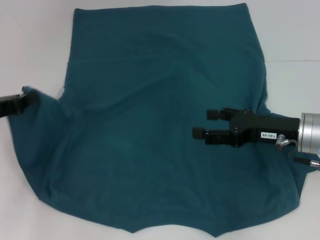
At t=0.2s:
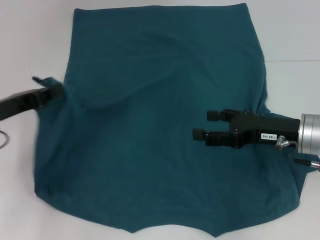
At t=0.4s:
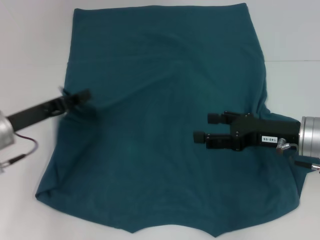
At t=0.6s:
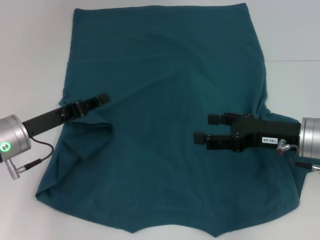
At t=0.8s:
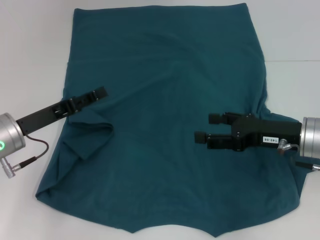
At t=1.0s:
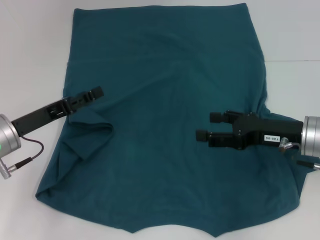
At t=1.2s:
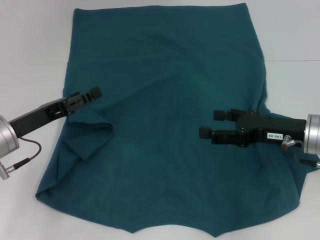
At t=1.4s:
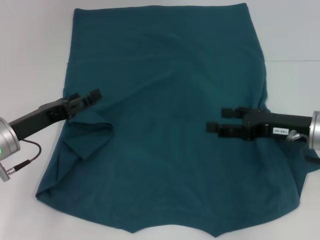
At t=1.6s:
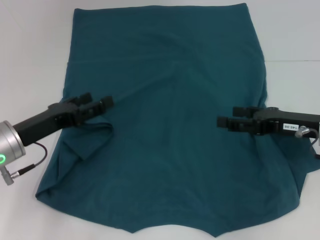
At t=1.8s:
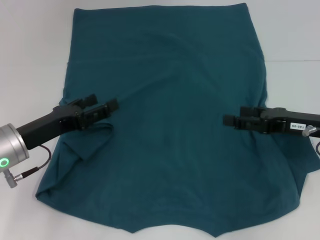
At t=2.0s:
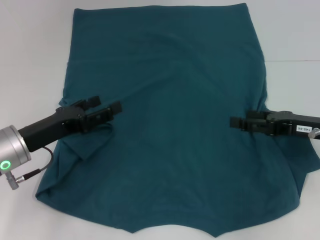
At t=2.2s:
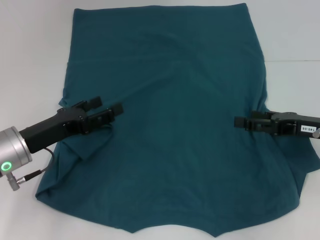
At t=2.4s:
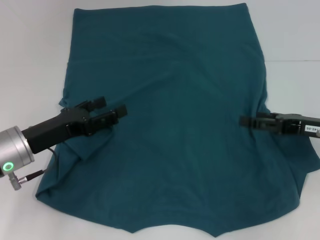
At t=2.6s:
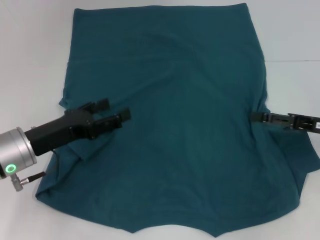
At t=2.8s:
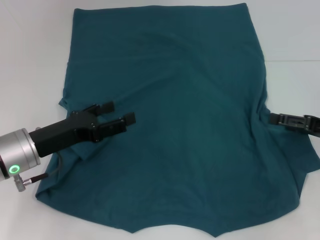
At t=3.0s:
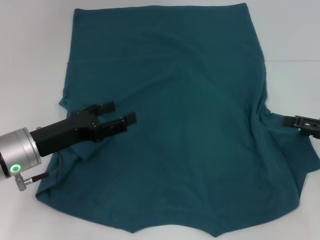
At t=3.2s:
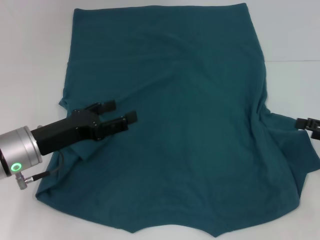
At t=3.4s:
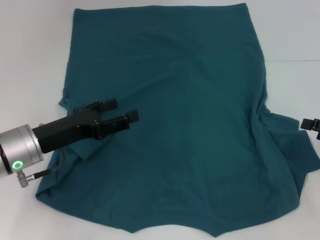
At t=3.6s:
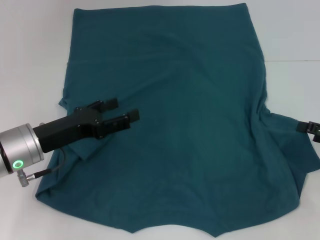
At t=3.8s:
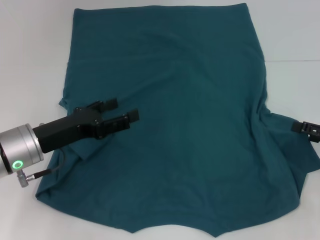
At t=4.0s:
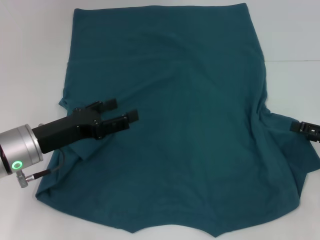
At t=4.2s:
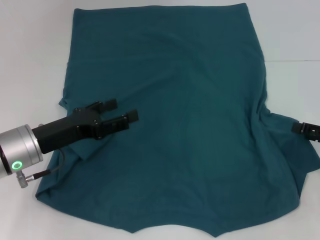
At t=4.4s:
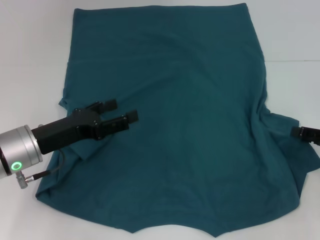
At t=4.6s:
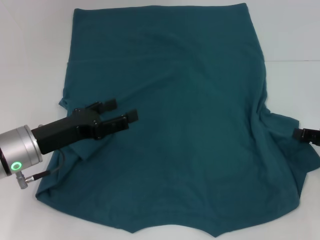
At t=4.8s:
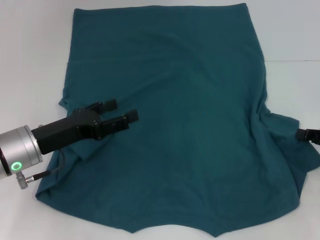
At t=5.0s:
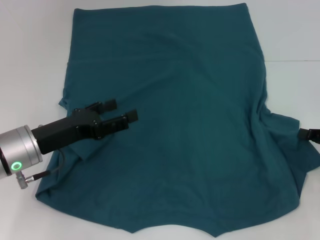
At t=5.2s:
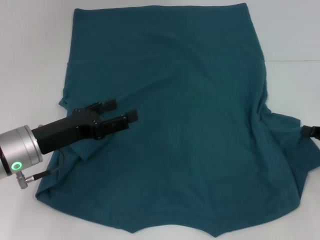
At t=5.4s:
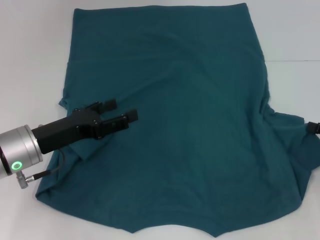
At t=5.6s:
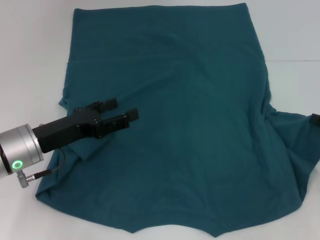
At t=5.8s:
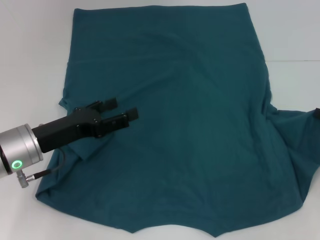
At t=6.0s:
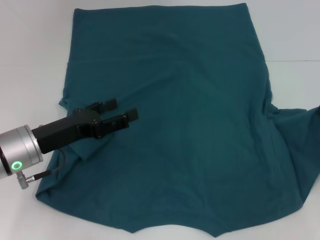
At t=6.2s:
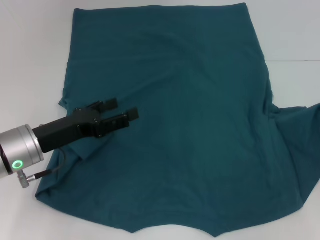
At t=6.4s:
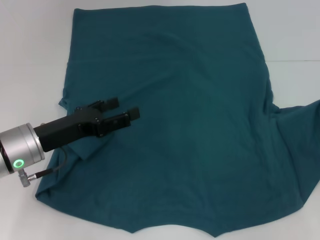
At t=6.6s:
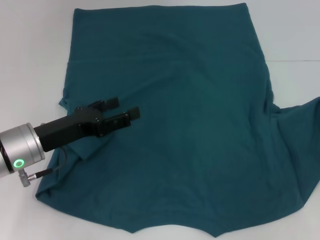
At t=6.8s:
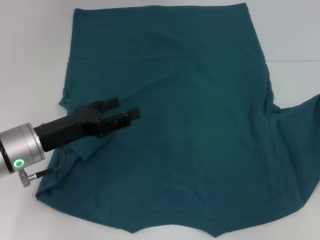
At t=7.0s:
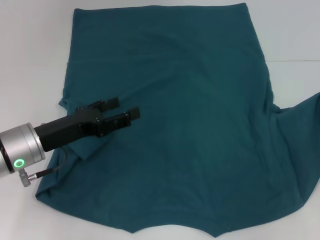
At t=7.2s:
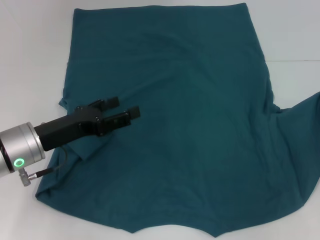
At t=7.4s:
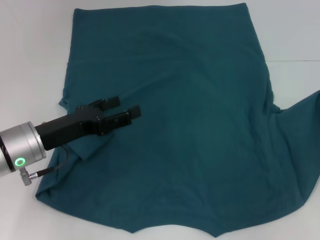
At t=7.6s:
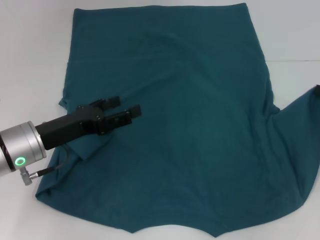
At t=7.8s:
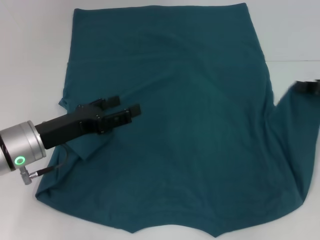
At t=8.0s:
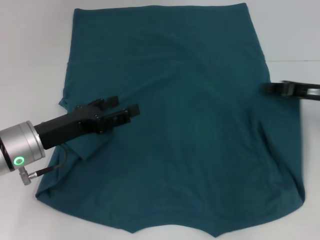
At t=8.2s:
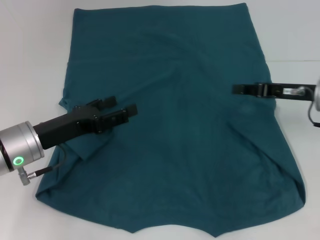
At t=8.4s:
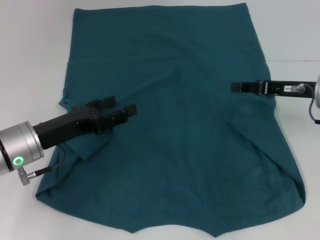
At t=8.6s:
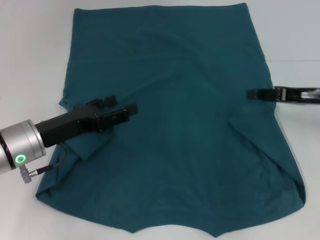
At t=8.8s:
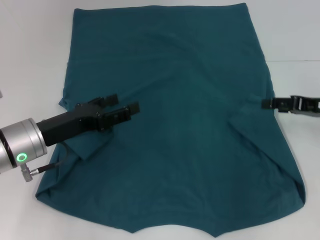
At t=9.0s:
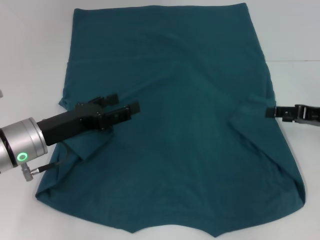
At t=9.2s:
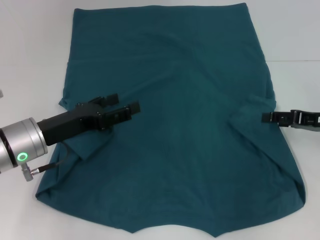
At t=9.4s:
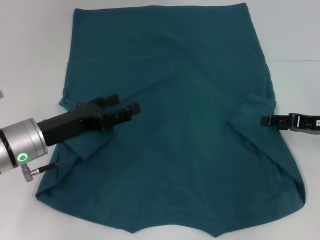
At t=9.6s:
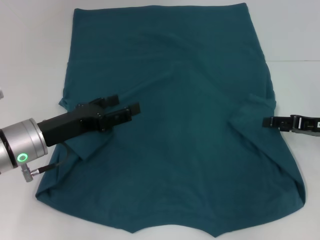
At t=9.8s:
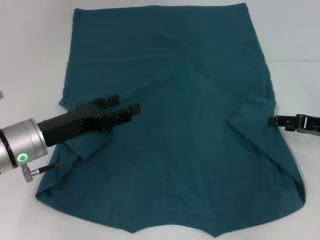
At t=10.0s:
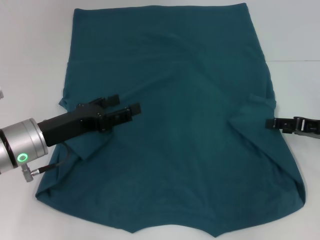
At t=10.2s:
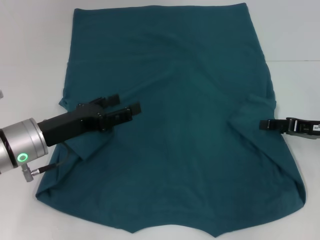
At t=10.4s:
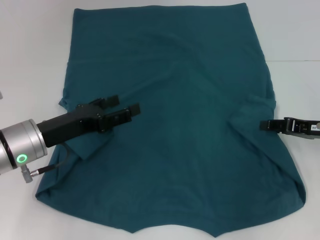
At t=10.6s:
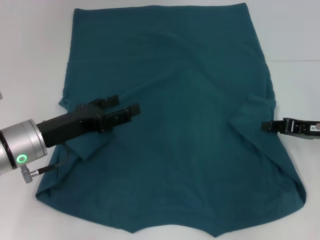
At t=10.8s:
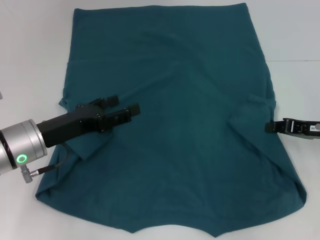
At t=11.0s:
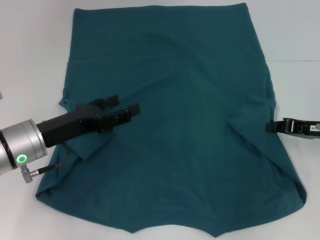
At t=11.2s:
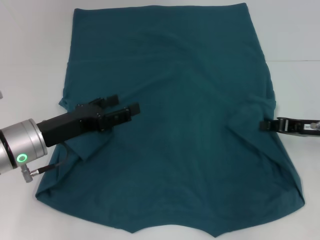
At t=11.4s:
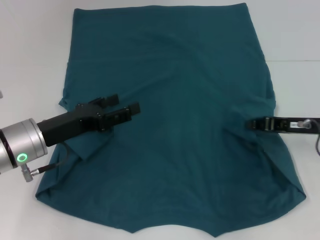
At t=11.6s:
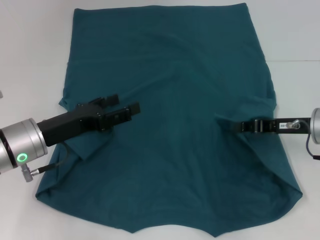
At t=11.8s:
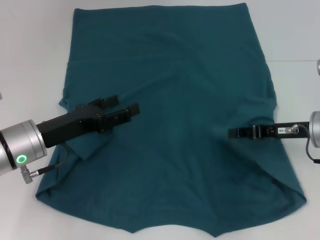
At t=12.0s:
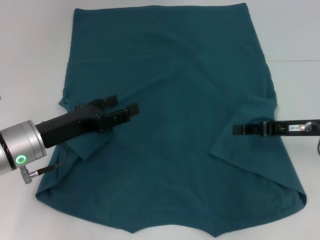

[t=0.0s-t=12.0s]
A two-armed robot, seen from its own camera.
t=0.0s to t=1.6s: The left gripper travels to the right by approximately 5 cm, and opens.
t=1.6s to t=3.0s: The right gripper goes about 10 cm to the right.
t=3.0s to t=4.4s: There are only small adjustments of the grippers.
t=4.4s to t=6.0s: The right gripper closes.
t=6.0s to t=7.6s: The grippers make only small movements.
t=7.6s to t=9.0s: The right gripper opens up.
t=9.0s to t=10.4s: The grippers move only a little.
t=10.4s to t=12.0s: The right gripper closes.

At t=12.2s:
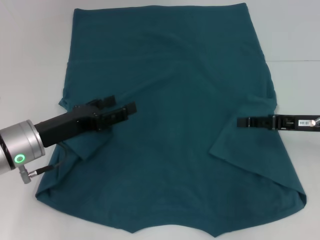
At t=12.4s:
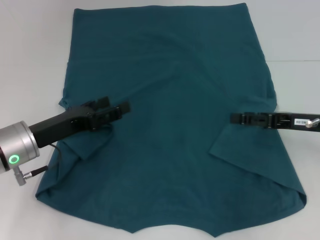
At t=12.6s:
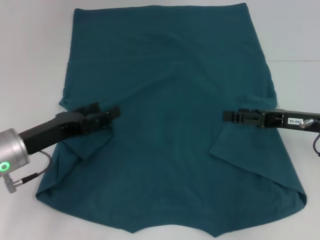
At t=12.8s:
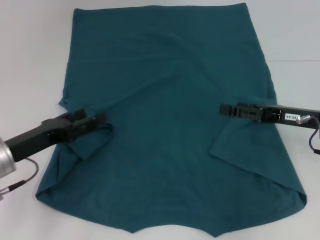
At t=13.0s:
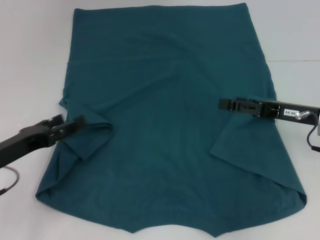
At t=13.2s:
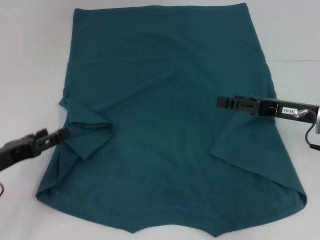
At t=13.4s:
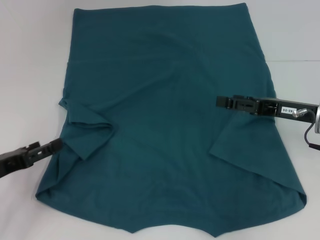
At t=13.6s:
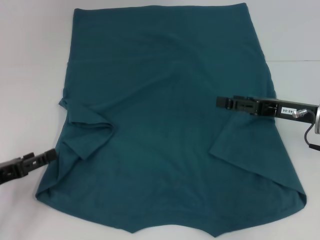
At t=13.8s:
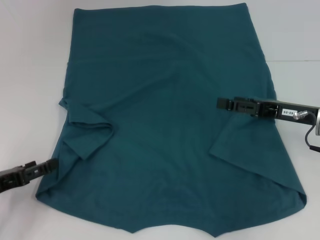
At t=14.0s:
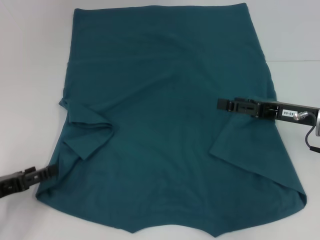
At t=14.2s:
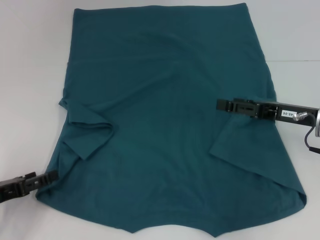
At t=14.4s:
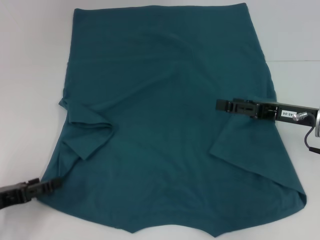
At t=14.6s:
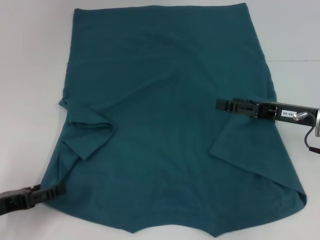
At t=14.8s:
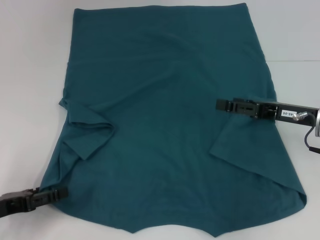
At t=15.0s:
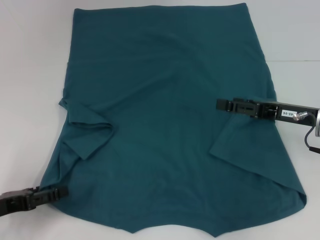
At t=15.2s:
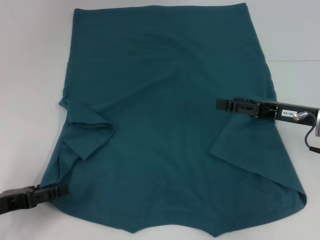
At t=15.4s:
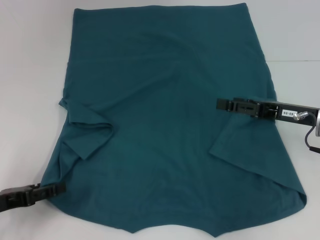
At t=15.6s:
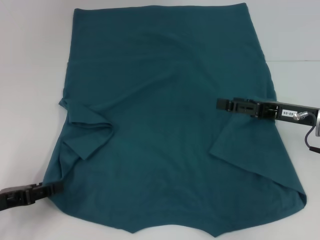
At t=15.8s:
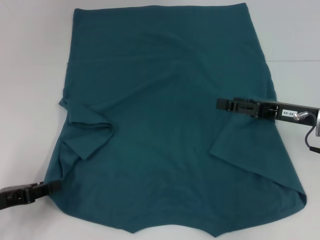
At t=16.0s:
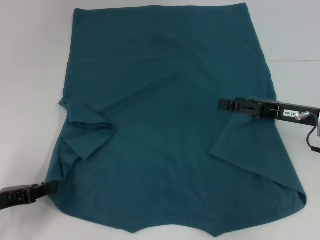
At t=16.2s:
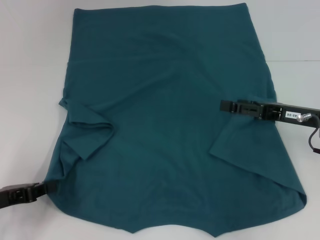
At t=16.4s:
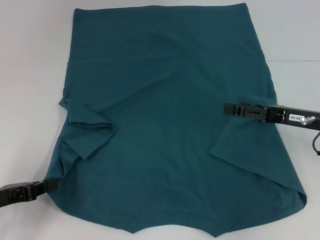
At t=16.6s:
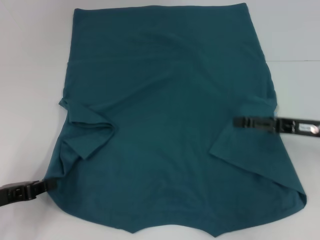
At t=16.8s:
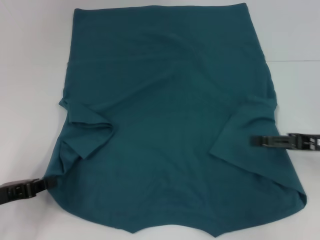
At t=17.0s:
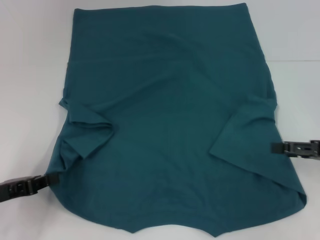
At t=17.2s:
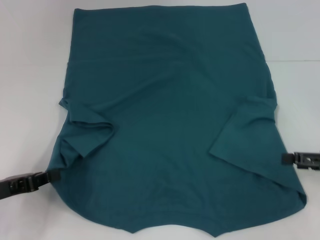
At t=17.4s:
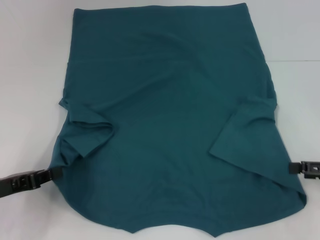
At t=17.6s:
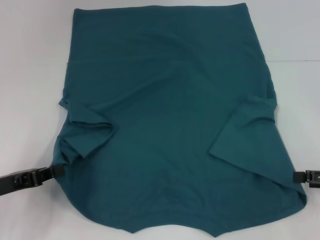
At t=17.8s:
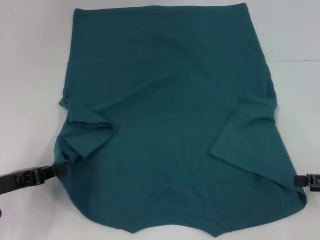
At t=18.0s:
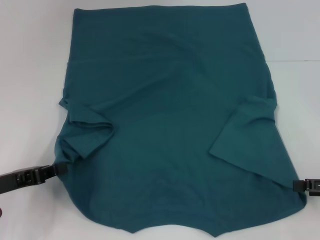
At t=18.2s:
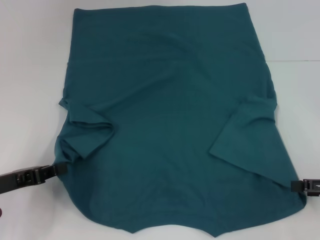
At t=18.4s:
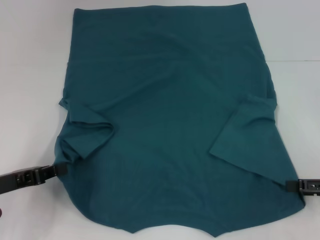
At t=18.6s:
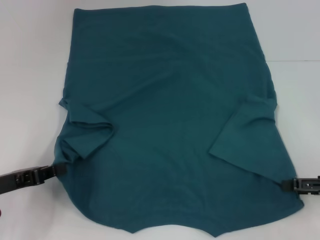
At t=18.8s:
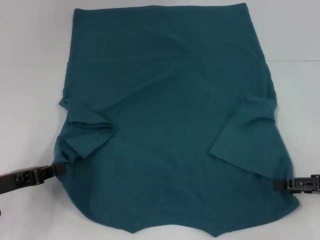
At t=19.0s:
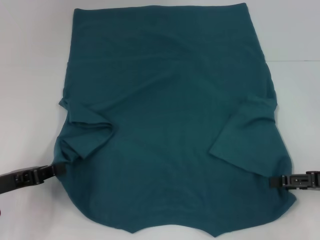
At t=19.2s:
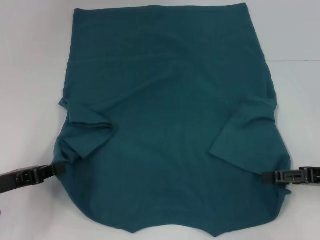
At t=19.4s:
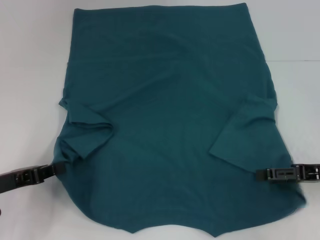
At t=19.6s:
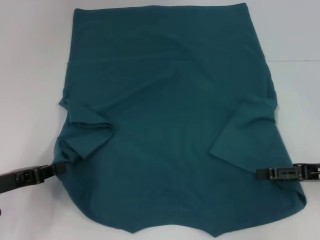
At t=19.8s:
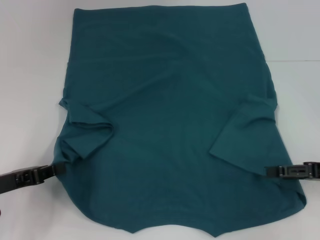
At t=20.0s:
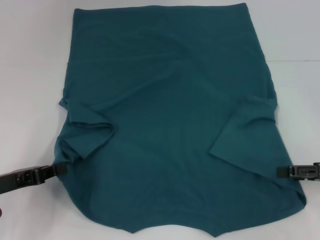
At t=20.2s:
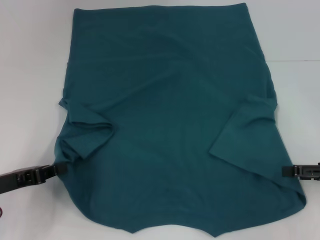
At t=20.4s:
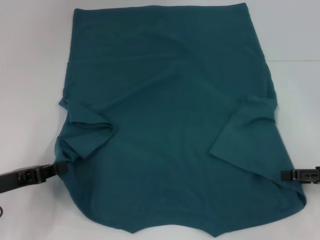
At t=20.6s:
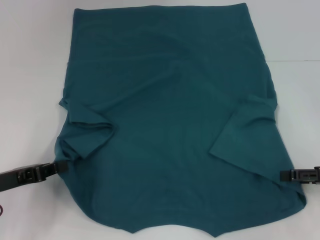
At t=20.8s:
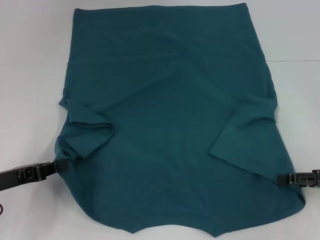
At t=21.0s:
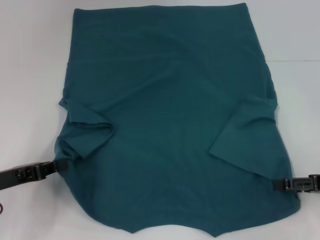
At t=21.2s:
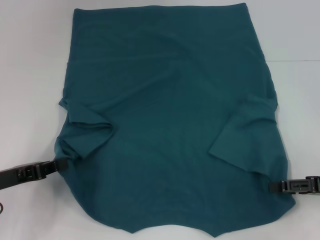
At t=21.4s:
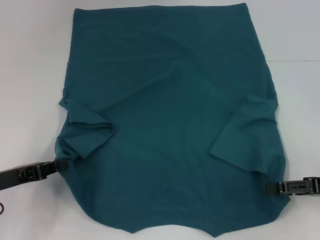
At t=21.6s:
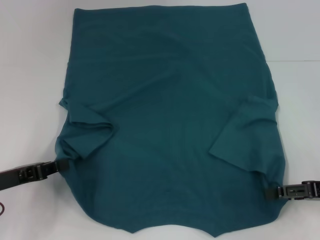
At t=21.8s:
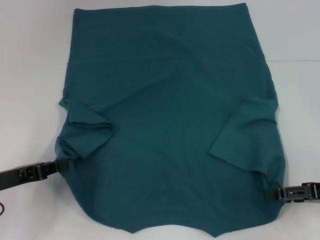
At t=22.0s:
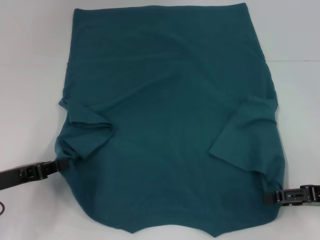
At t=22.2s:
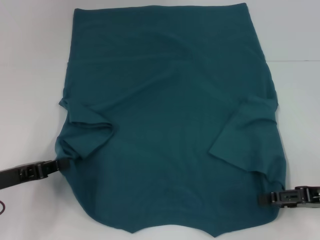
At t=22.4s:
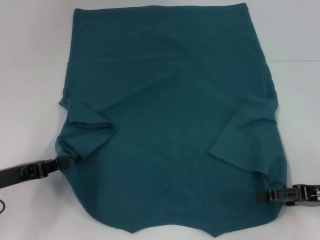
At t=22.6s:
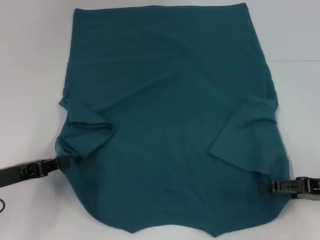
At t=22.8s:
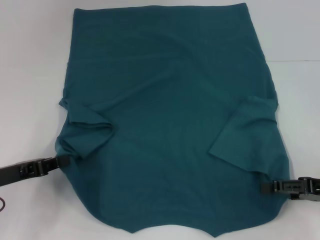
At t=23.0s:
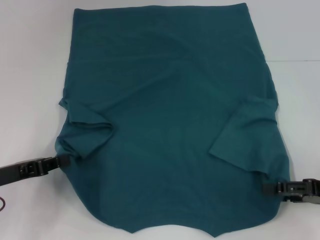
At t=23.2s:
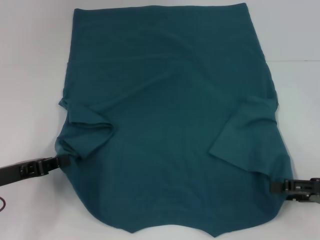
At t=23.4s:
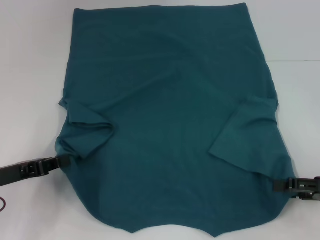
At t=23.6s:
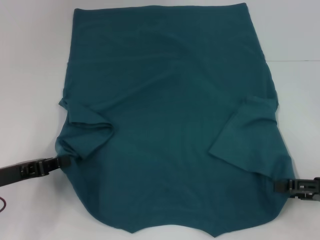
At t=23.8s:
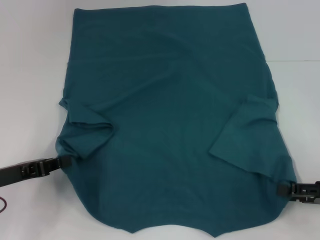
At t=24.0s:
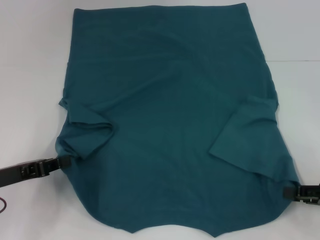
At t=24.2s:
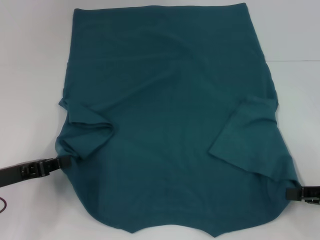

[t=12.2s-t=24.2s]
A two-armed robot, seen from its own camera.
Step, t=12.2s to t=16.2s: Grab the bottom left corner with your left hand.
t=12.2s to t=13.8s: The left gripper goes some 15 cm to the left and backward. Meanwhile the right gripper opens.
t=13.8s to t=15.2s: The grippers stay close to where they were, moving slightly.
t=15.2s to t=16.6s: The left gripper closes.
t=16.6s to t=18.2s: The right gripper moves to the right and backward, about 10 cm.
t=18.2s to t=22.6s: There are only small adjustments of the grippers.
t=22.6s to t=24.2s: The right gripper closes up.
